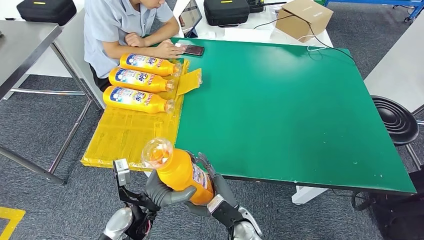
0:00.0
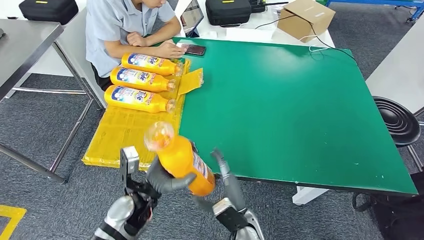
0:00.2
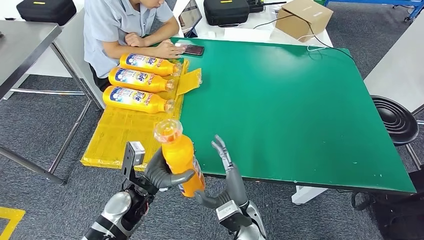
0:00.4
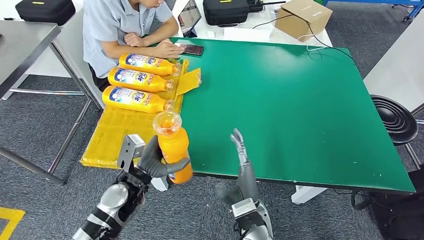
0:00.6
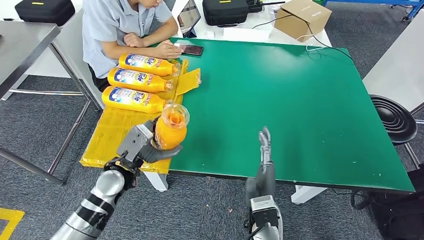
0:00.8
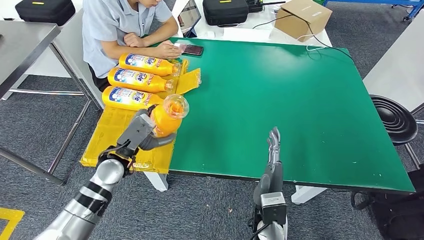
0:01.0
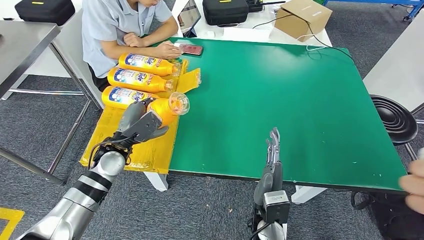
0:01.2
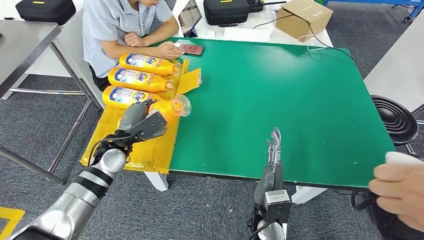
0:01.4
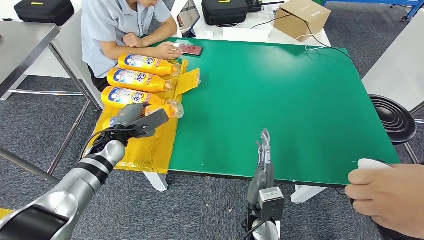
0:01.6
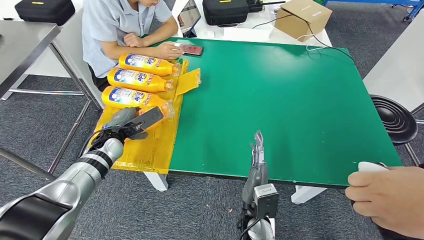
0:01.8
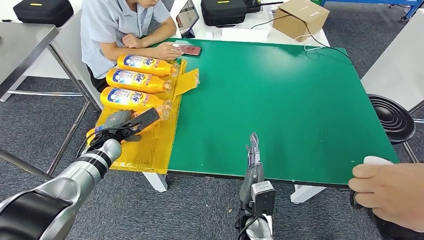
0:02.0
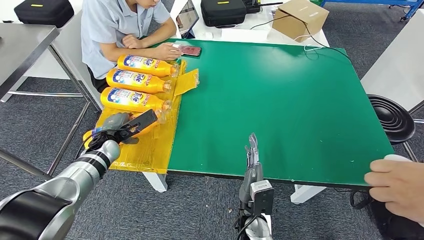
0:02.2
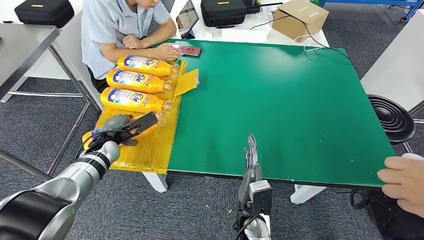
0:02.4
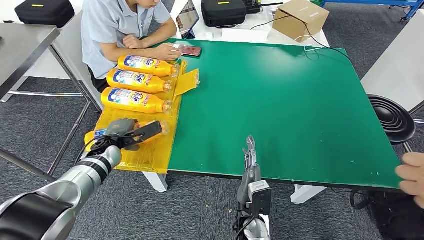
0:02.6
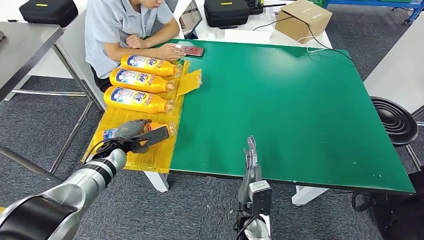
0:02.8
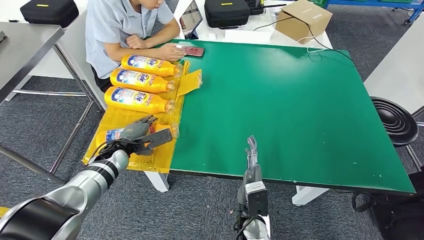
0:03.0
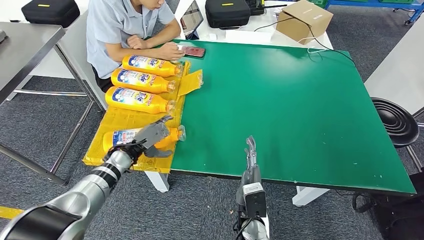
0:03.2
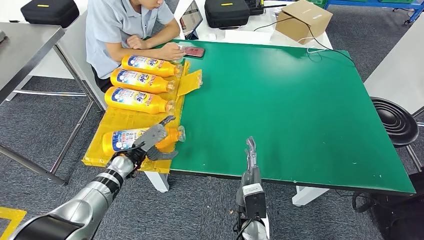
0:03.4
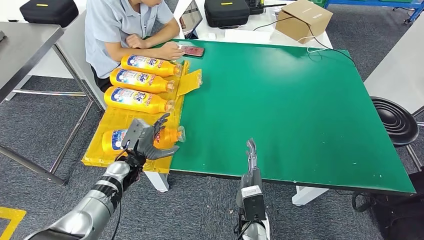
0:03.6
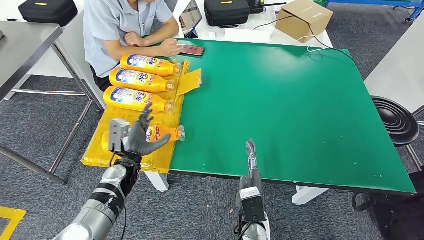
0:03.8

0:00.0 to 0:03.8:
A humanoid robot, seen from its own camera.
Step, 0:00.0 to 0:03.8: Flip the fast-moving consumer goods bottle to the front side.
